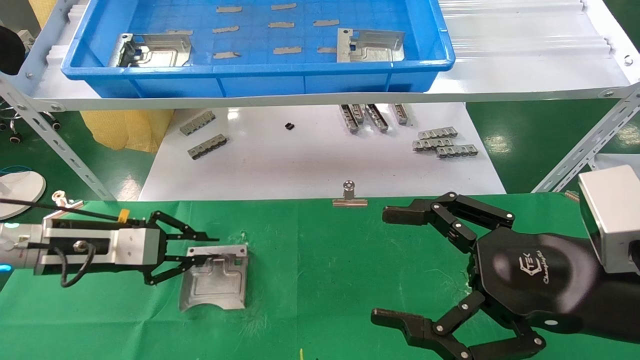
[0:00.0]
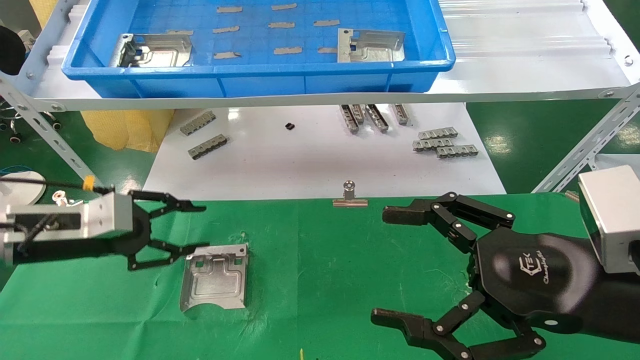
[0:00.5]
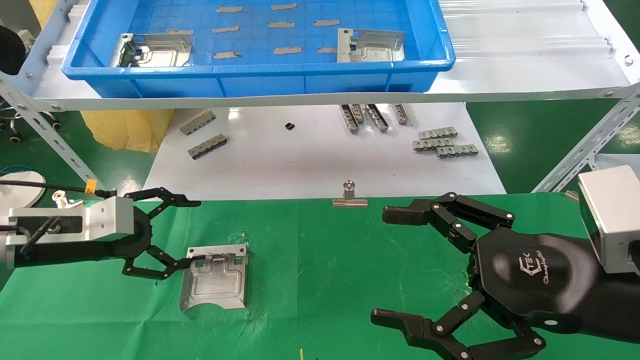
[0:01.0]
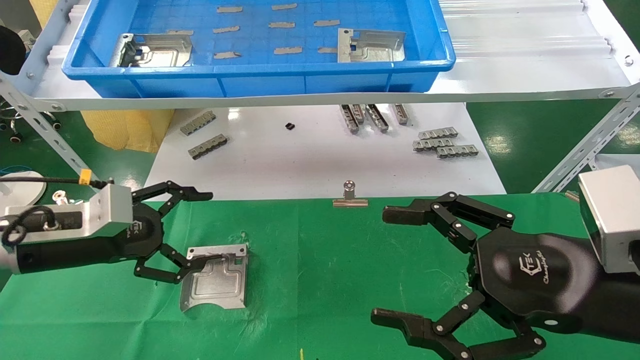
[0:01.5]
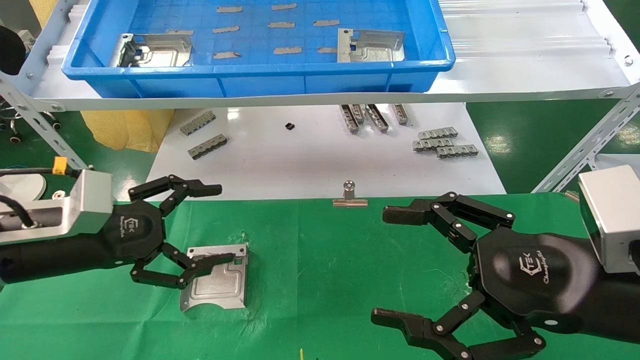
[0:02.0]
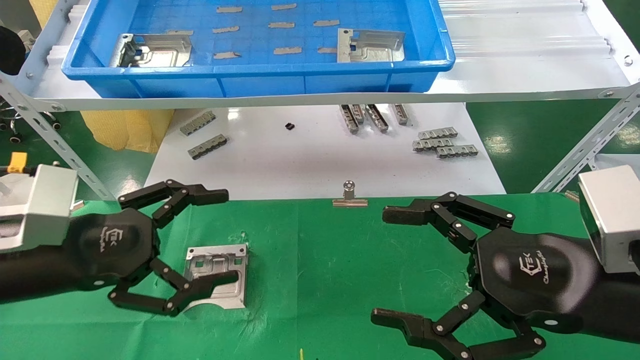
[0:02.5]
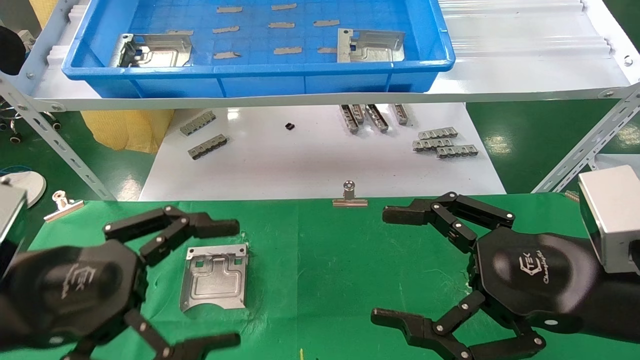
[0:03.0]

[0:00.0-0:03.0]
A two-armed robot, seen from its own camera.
Task of the whole recording: use the mechanical arm to pick up the parts and place them on the table.
0:00.0 to 0:01.5: The left gripper opens up.
0:01.5 to 0:03.0: The left gripper shifts some 15 cm backward.

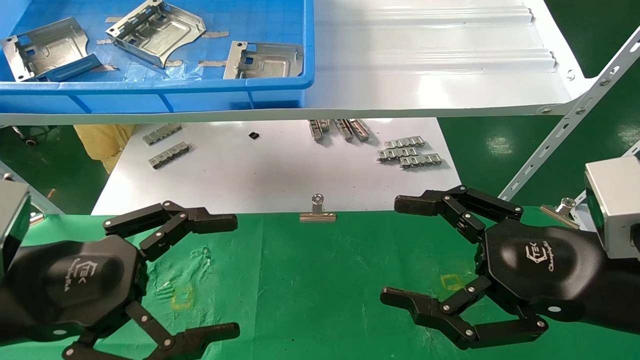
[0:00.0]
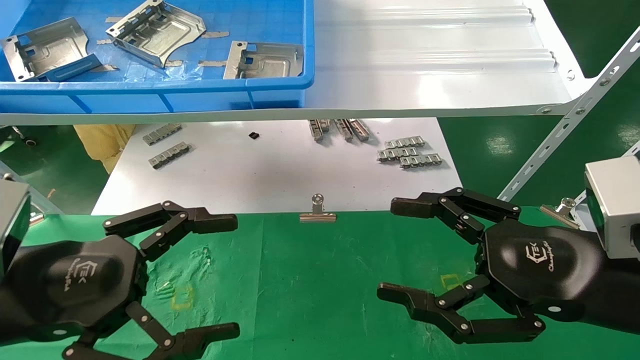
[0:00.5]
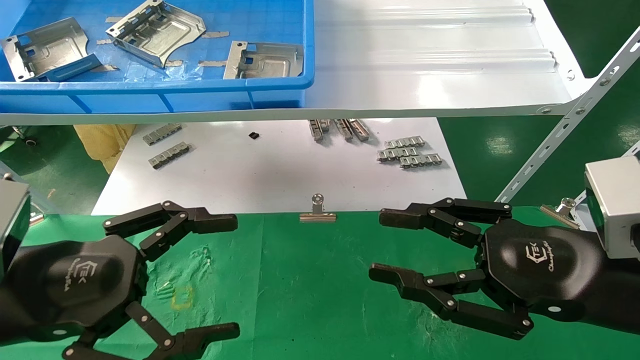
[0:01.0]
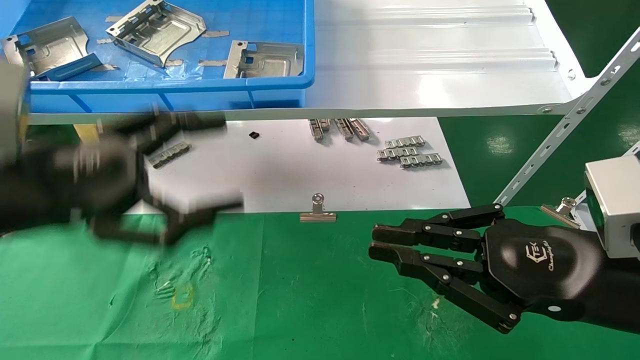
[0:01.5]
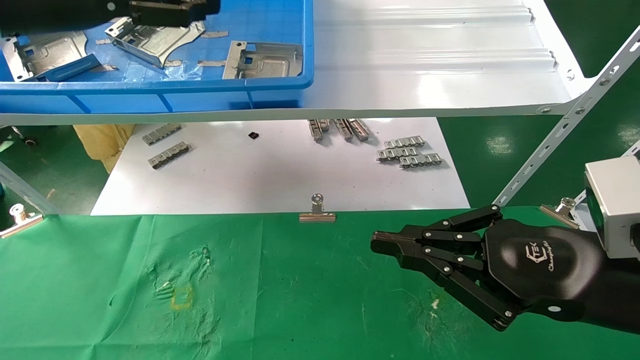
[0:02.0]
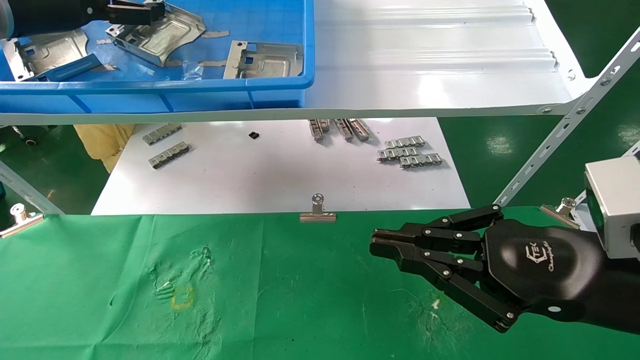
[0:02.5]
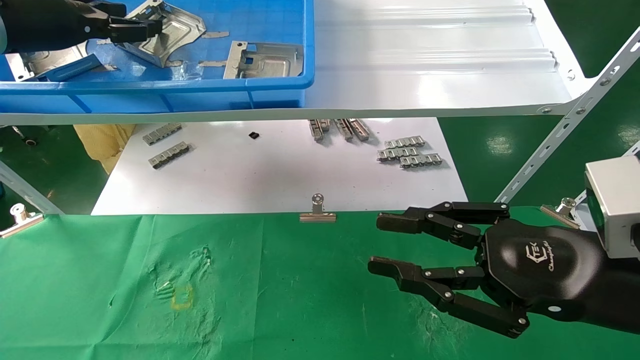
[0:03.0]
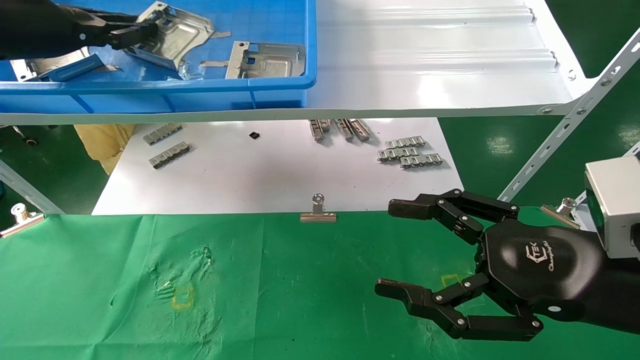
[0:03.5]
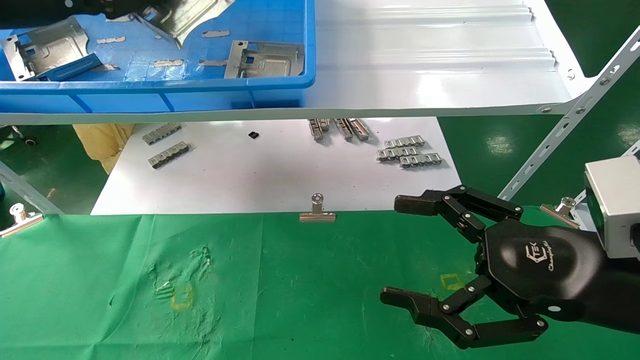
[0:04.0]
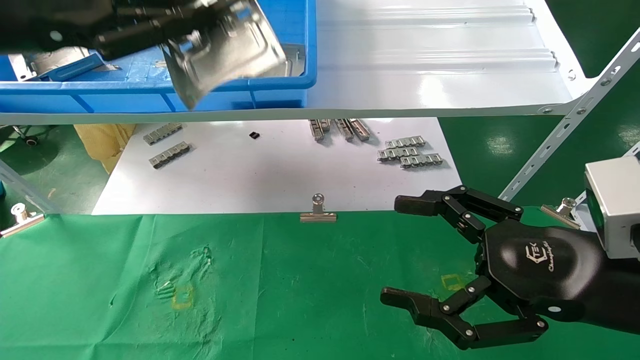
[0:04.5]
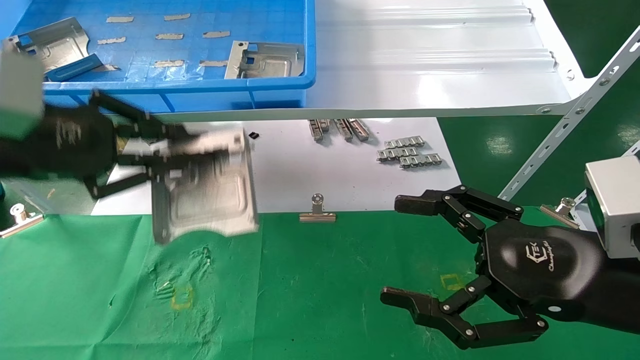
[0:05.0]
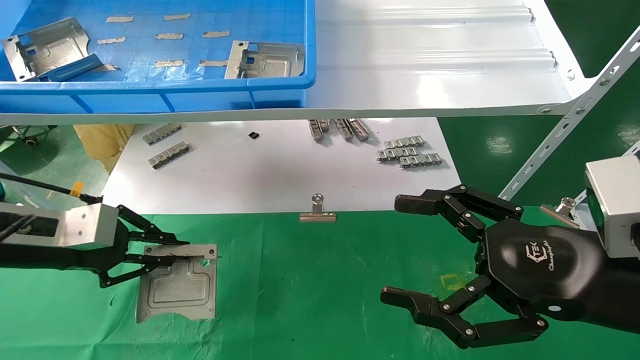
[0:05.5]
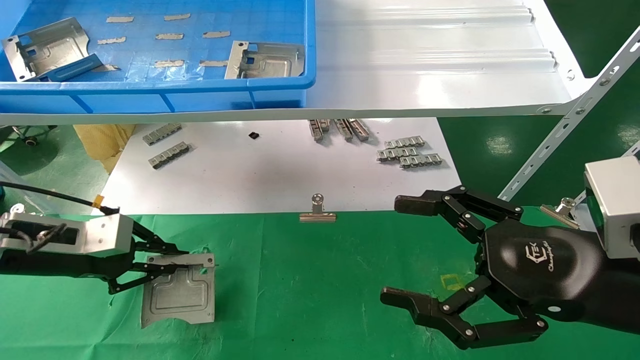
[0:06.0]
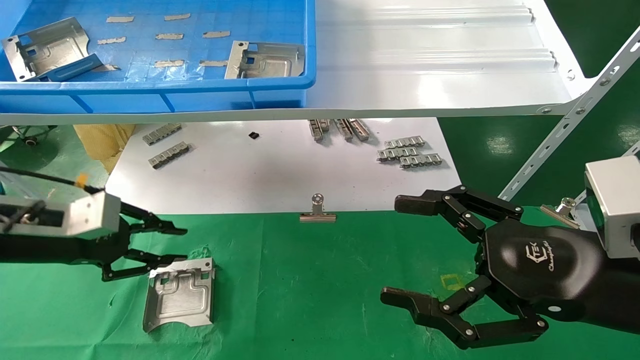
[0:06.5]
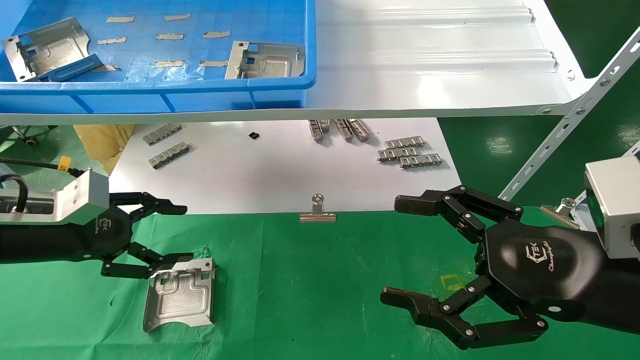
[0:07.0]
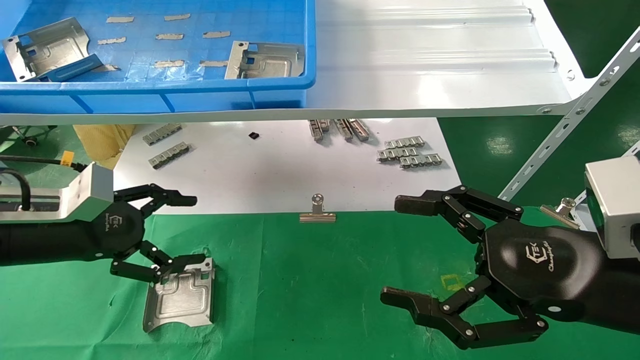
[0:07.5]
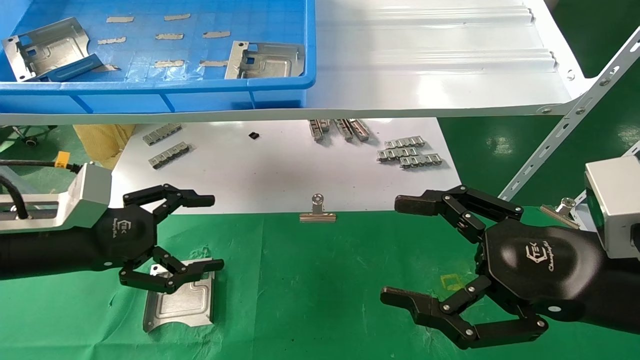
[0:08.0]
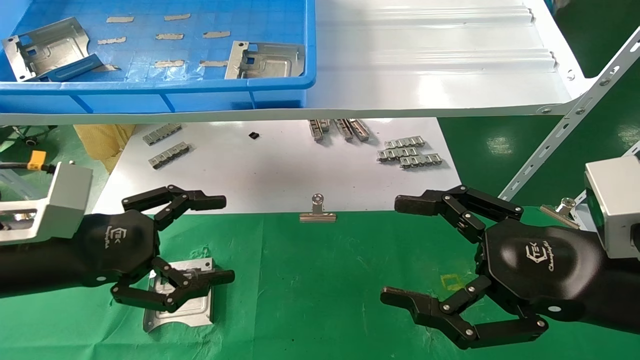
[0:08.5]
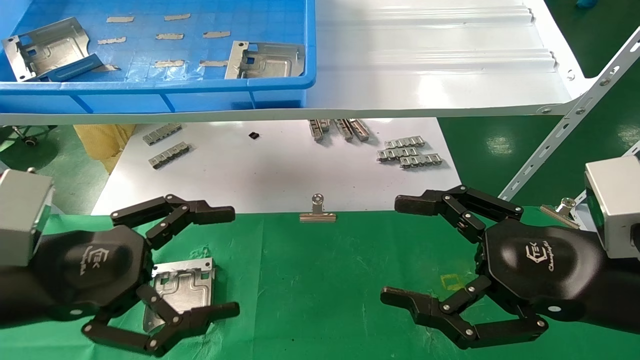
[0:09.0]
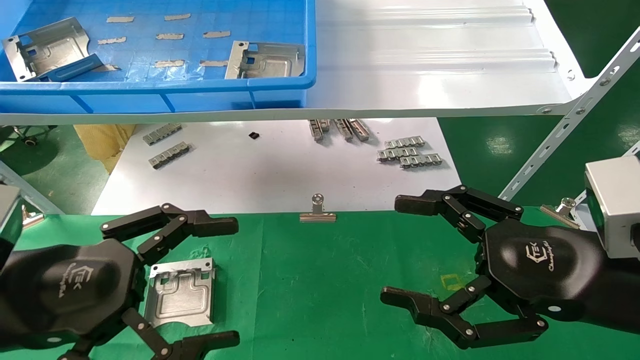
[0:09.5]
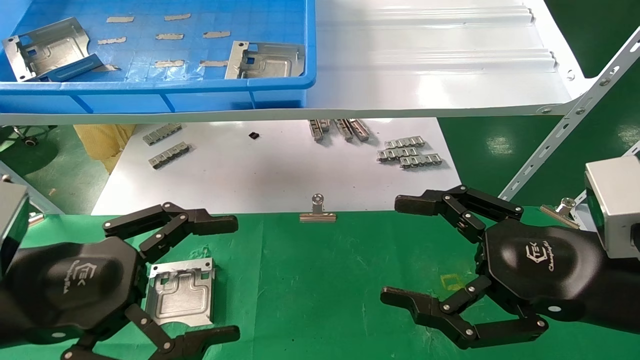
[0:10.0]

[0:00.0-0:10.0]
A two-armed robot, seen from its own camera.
Task of the whole recording: use the mechanical arm to pick up the parts and place them on the table.
Step, 0:01.5 to 0:04.0: Pick up the hard drive bracket from the feeding area.
Step, 0:04.5 to 0:06.5: Place the hard drive bracket into the box.
0:00.0 to 0:02.0: The right gripper closes up; the left gripper goes approximately 25 cm upward and forward.
0:02.0 to 0:04.0: The left gripper closes its fingers, while the right gripper opens.
0:04.0 to 0:06.0: The left gripper goes roughly 25 cm downward.
0:06.0 to 0:08.0: The left gripper shifts by some 5 cm, and opens.
0:08.0 to 0:10.0: The left gripper is displaced backward by some 10 cm.
